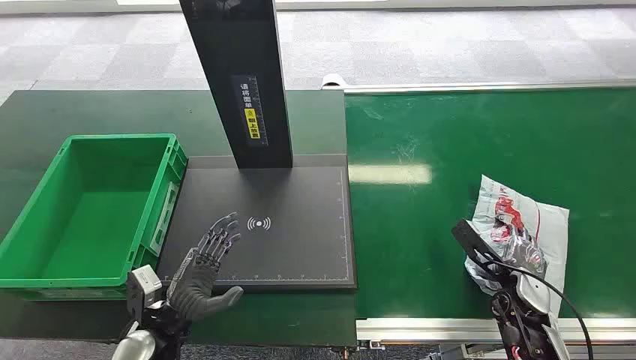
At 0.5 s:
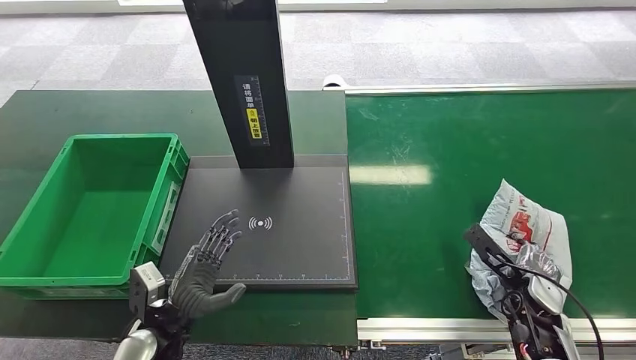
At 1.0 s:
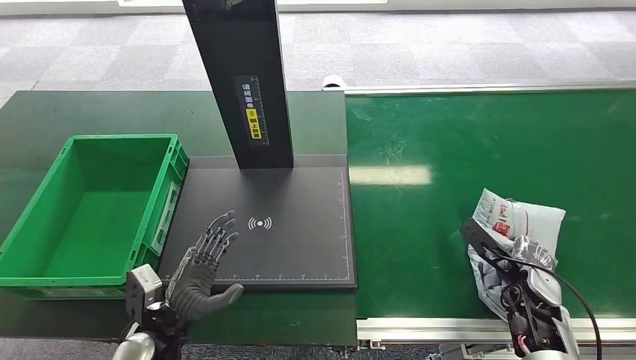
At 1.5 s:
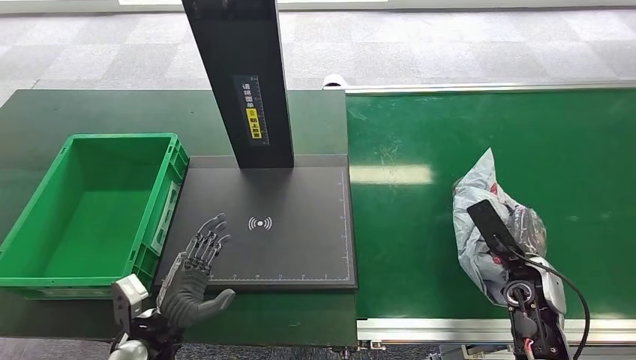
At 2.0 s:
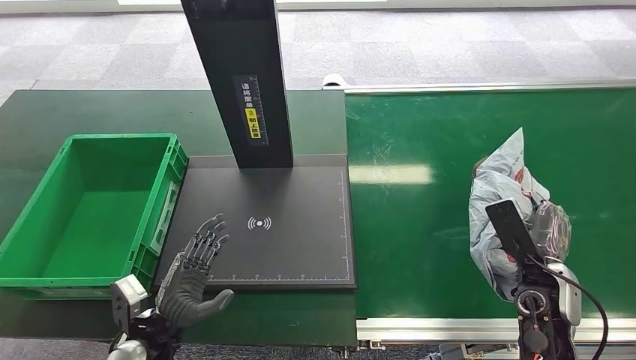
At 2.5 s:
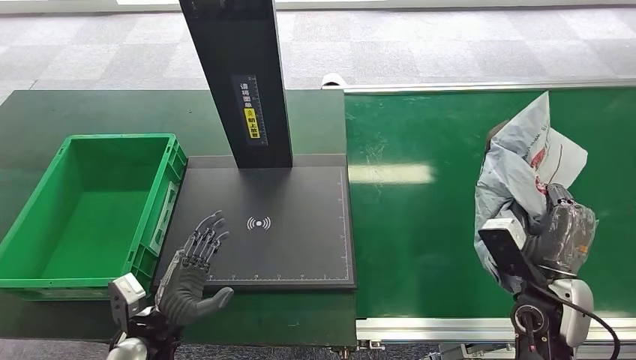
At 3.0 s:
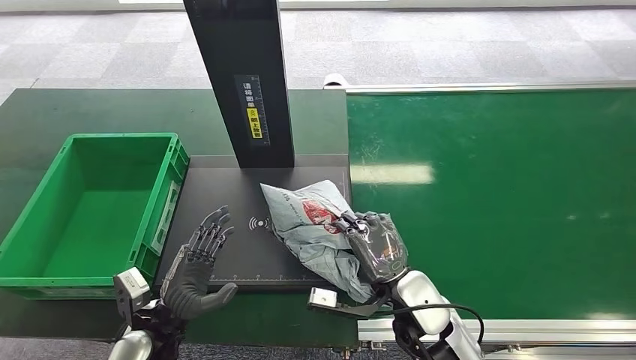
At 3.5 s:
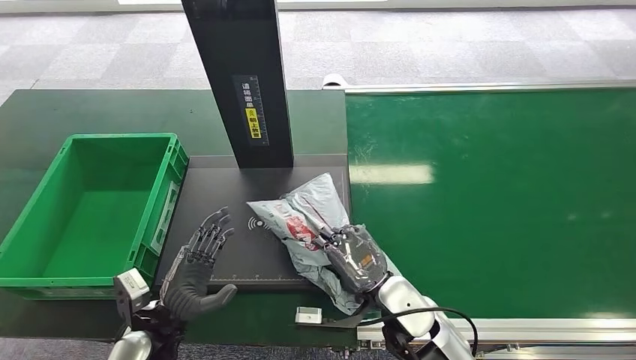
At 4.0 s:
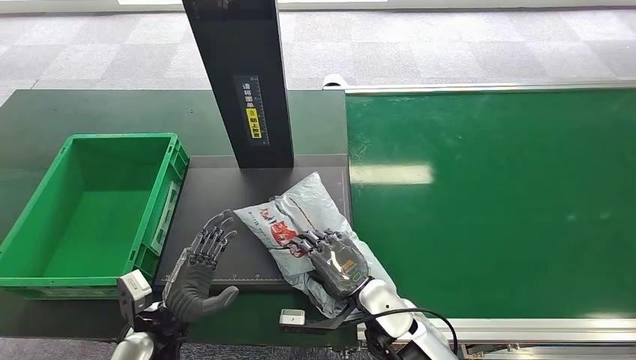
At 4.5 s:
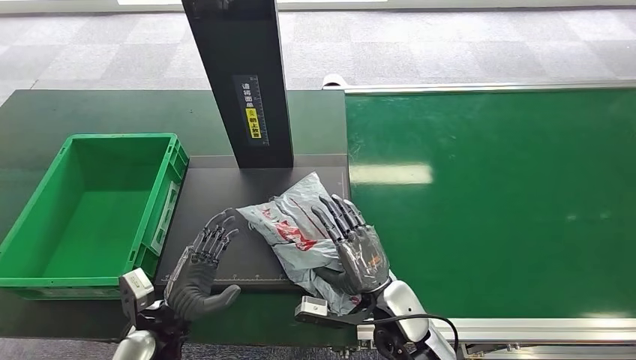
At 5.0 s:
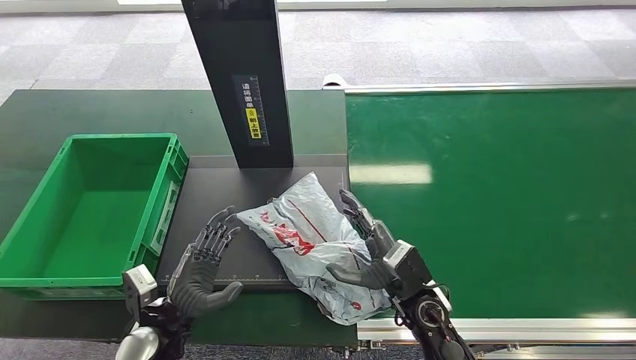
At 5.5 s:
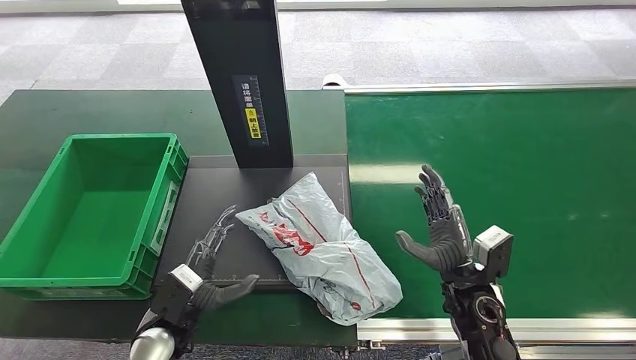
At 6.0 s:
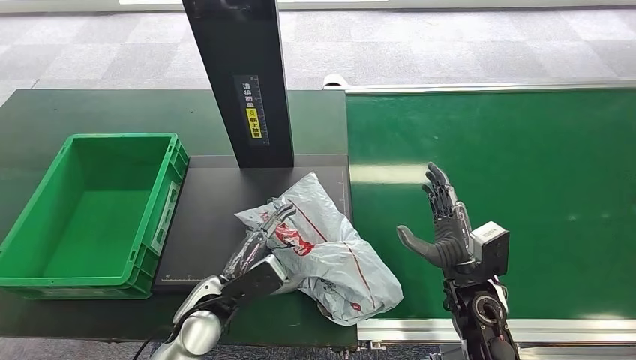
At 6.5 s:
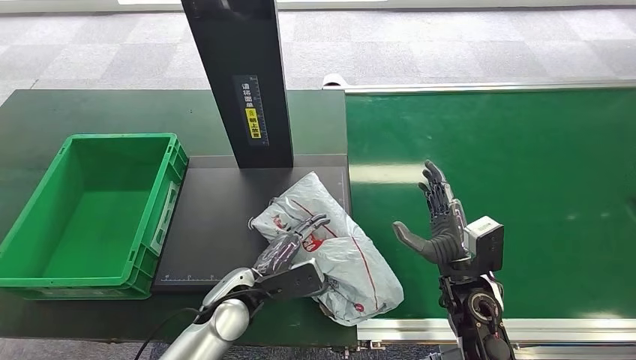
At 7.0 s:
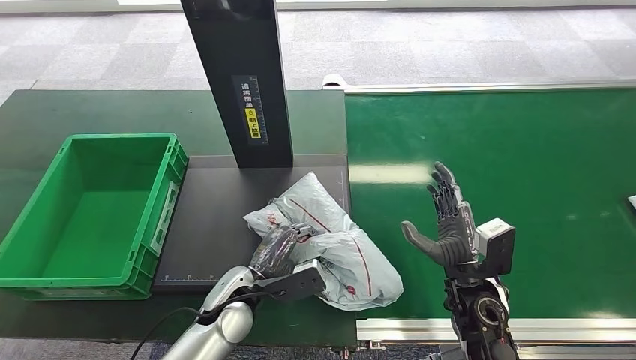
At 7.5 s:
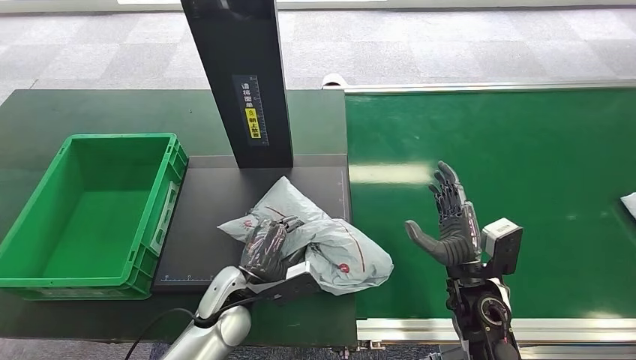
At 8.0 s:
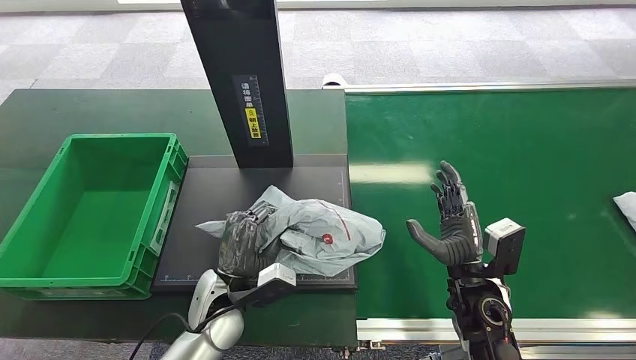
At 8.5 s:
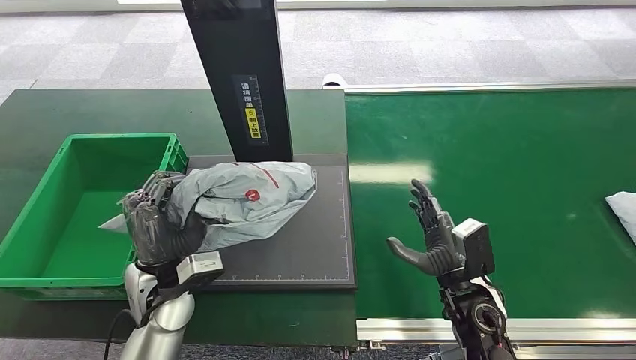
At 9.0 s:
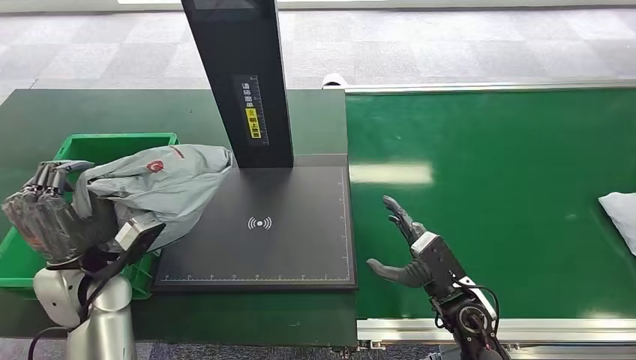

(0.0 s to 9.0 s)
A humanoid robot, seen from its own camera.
Step, 0.0 s - 2.0 s: Pick up the package from the conveyor belt.
Step, 2.5 s - 5.5 s: Place the package onto the inbound machine.
Step, 6.0 s - 8.5 s: Pick up the package from the inbound machine.
2.0 s - 4.5 s: The right hand moves to the left, approximately 25 cm.
4.5 s - 7.0 s: The left hand travels to the right and forward by some 10 cm. Meanwhile the right hand travels to the right by about 10 cm.
